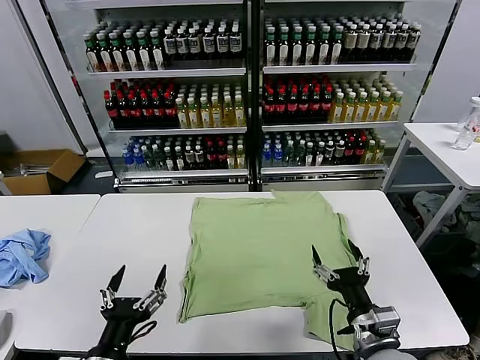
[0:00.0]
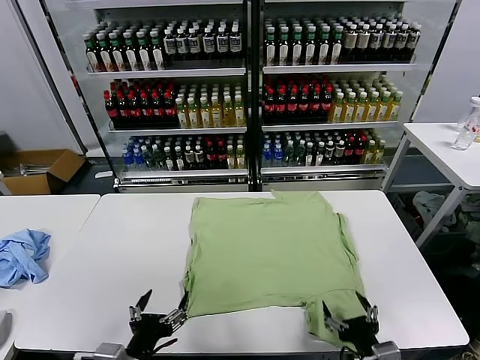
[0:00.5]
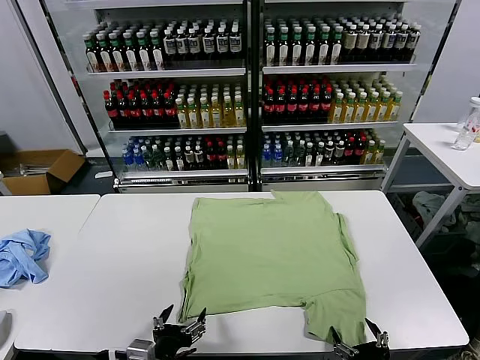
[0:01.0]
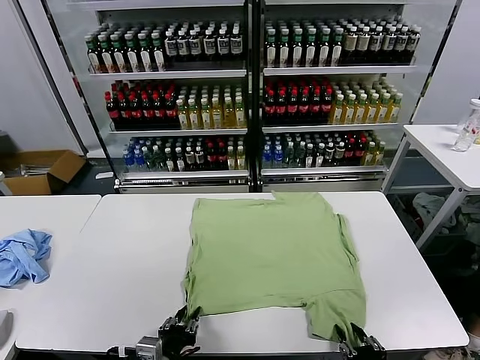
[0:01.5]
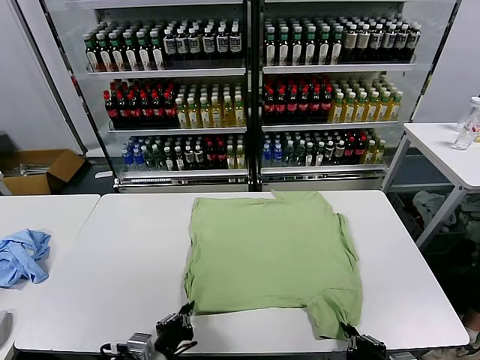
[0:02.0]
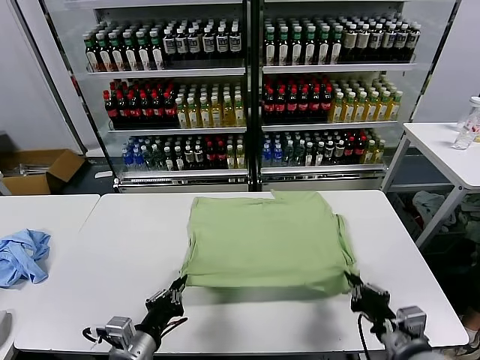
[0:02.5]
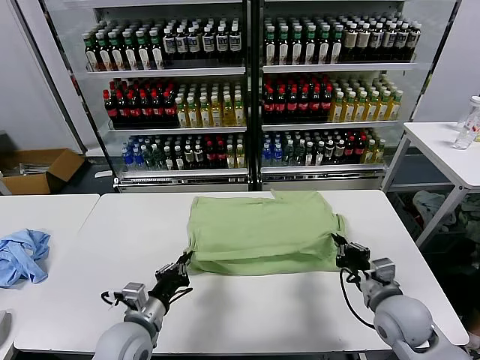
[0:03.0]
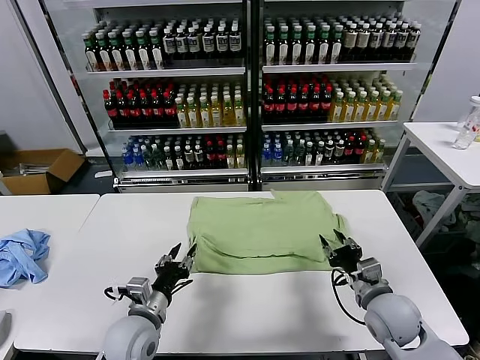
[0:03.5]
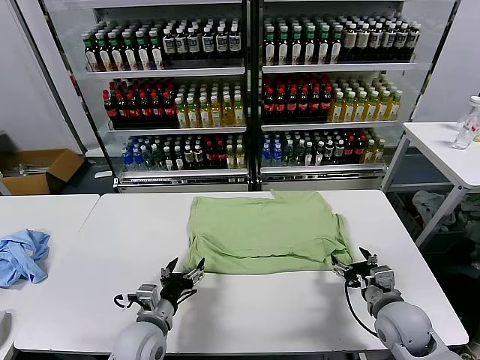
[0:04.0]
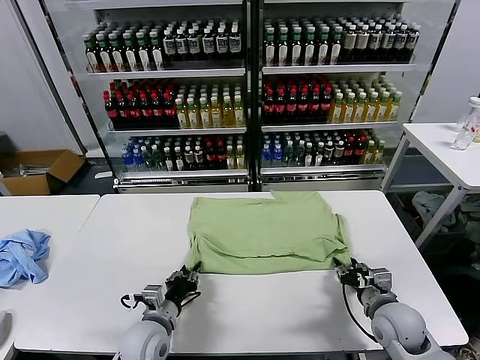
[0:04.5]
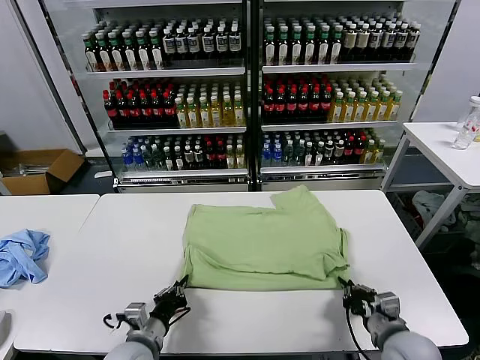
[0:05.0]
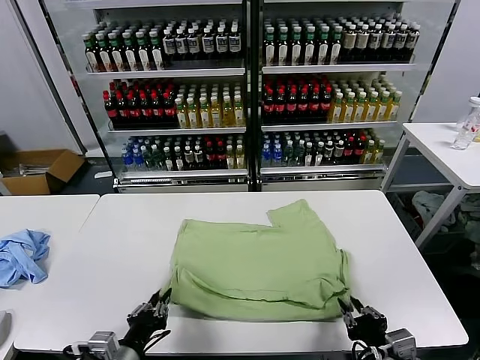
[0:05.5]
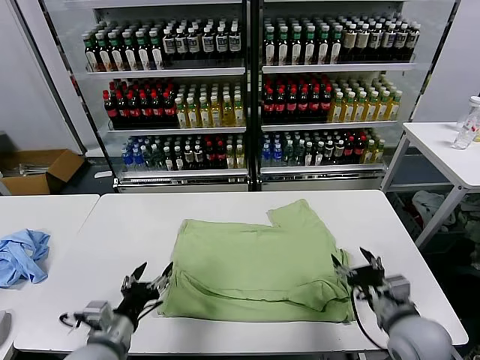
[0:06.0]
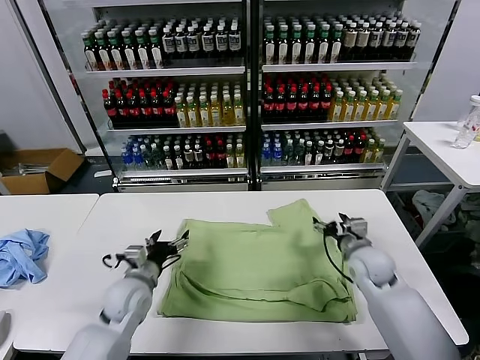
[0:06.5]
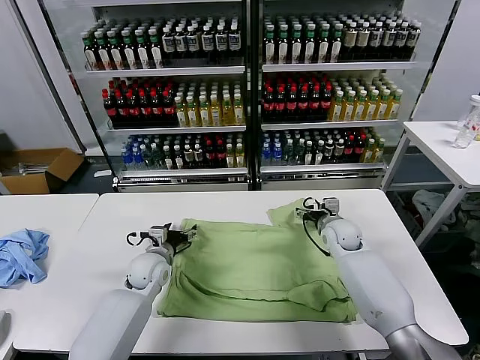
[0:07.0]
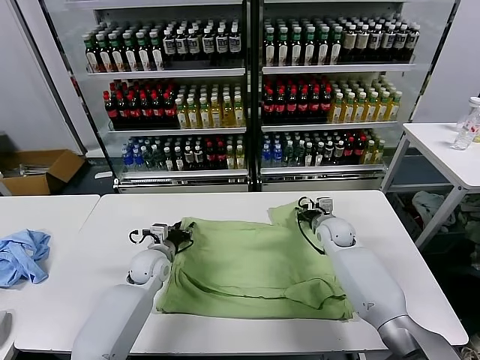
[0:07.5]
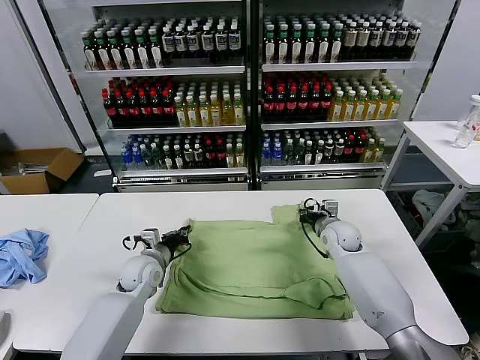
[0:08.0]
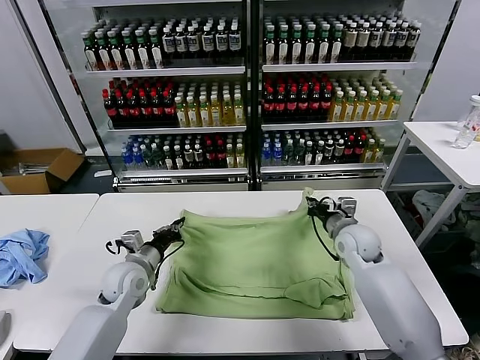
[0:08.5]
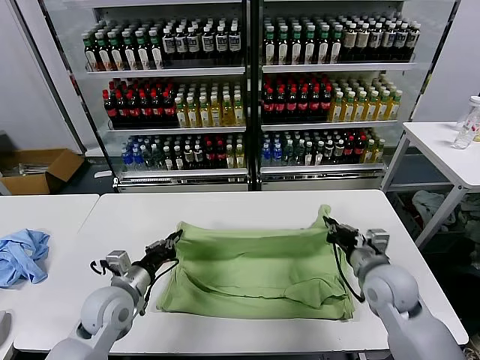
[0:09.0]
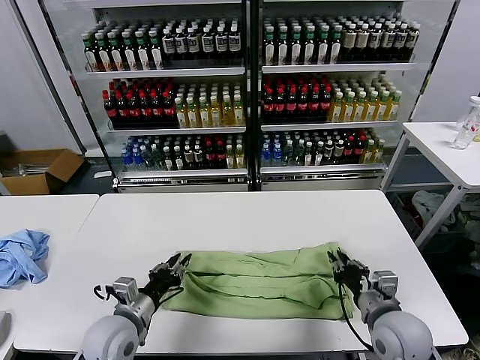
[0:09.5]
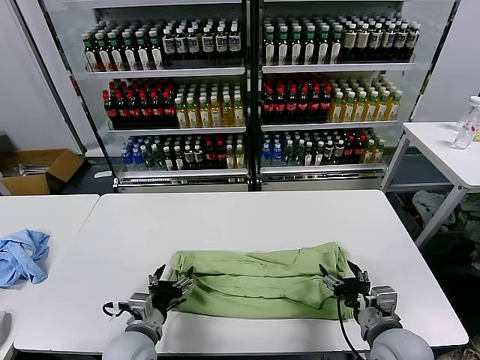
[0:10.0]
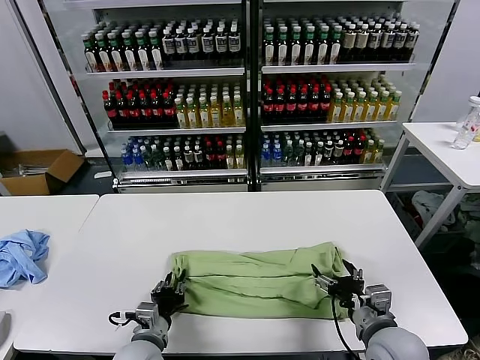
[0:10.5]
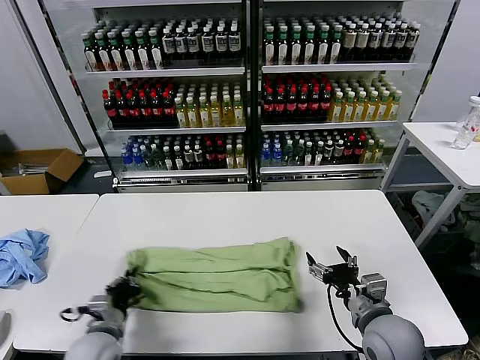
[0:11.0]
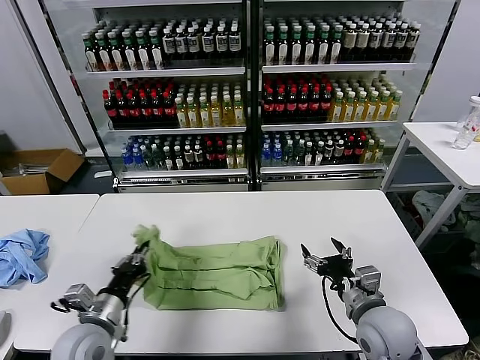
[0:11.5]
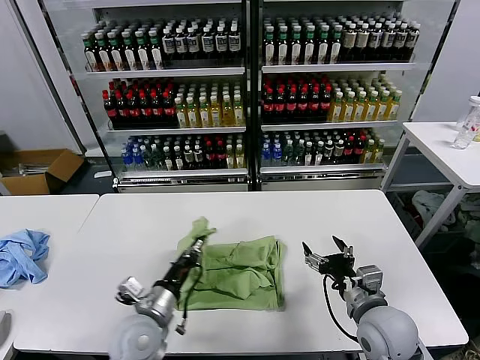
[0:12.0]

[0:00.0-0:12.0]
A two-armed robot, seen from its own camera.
Task of the whole recording: fold and organize the clothes.
Step, 0:00.0 to 0:01.5: use both grippers simultaneously to clamp the lower edge of the clothing fabric.
Step, 0:02.0 to 0:03.0: use both grippers to drag the lower edge of the fabric forward and fold it over the upper edge.
Step, 0:03.5 to 0:05.5: Drag the clothes downward with both gripper.
Step, 0:06.0 to 0:07.5: use both grippers simultaneously to clamp the upper edge of the clothing fabric.
Step, 0:08.0 to 0:09.5: use both grippers to drag the upper edge of the fabric backward and fold it over the lower edge.
Step, 0:10.0 to 0:10.5: use the left gripper to clamp the left edge of the fabric.
0:02.0 to 0:04.0: Both grippers travel together forward, approximately 15 cm. The left gripper opens its fingers. Meanwhile the right gripper opens.
0:04.0 to 0:06.0: The left gripper goes roughly 10 cm upward, to the left and backward, and closes, then opens again, while the right gripper goes backward and returns, some 15 cm each way, and closes, then opens again.
0:06.0 to 0:08.0: Both grippers travel together forward, approximately 20 cm. The right gripper closes up; the left gripper closes its fingers.
0:08.0 to 0:10.0: The right gripper shifts approximately 30 cm backward, and opens its fingers. Meanwhile the left gripper heads backward, covering some 20 cm, and opens up.
0:10.0 to 0:12.0: The left gripper reaches about 10 cm to the left, then returns, and closes up.

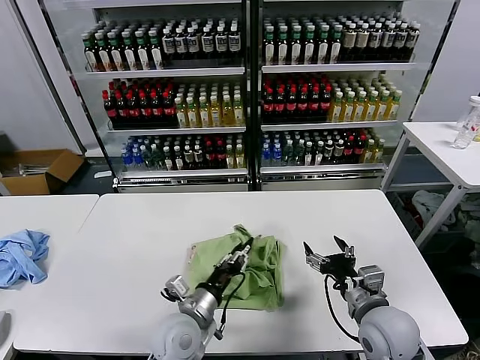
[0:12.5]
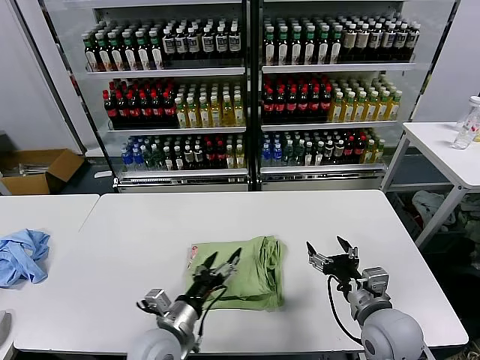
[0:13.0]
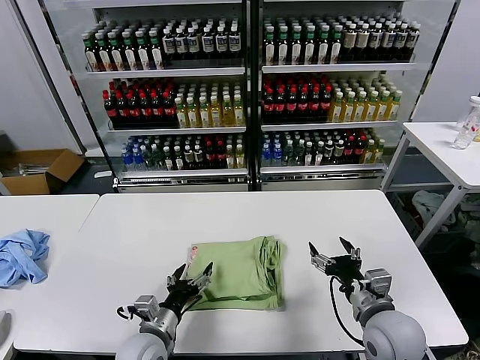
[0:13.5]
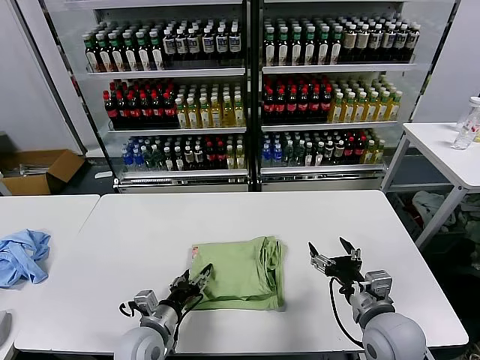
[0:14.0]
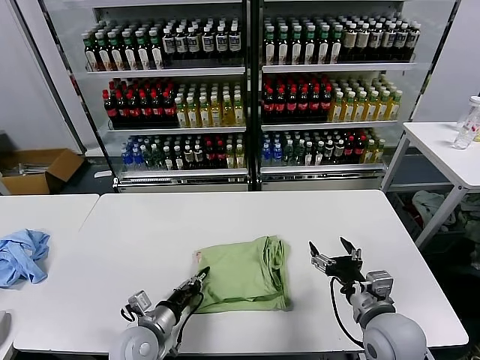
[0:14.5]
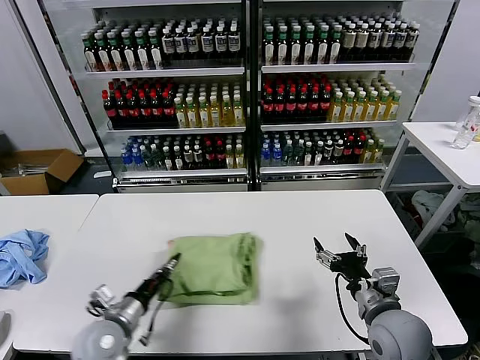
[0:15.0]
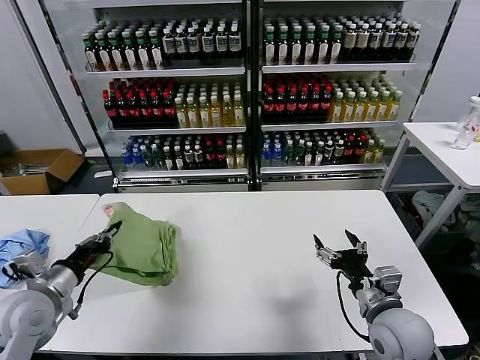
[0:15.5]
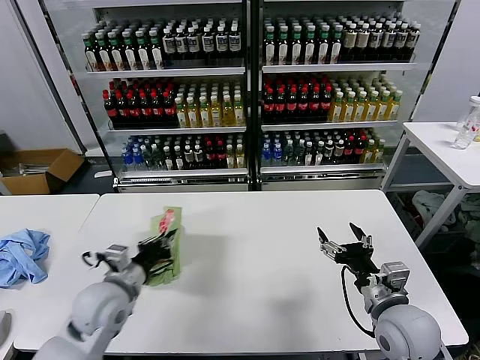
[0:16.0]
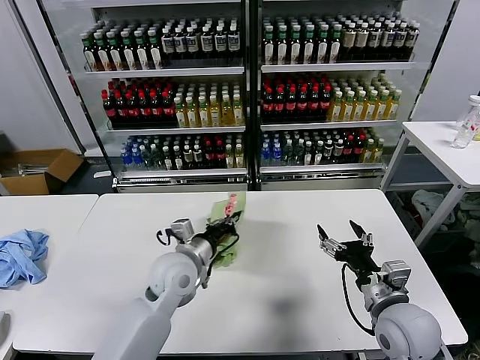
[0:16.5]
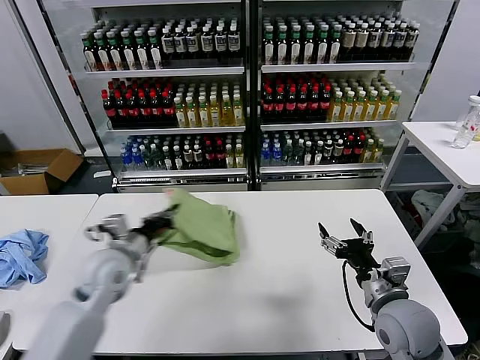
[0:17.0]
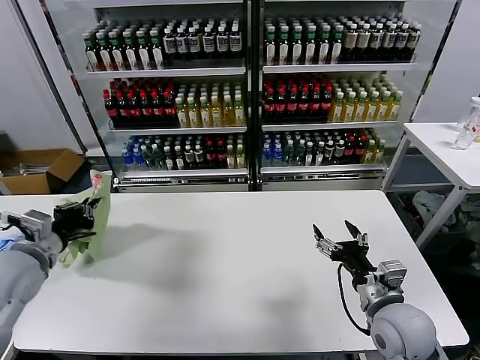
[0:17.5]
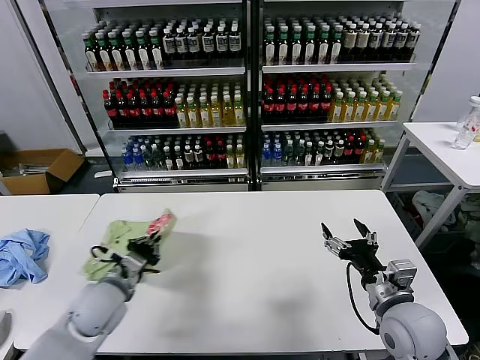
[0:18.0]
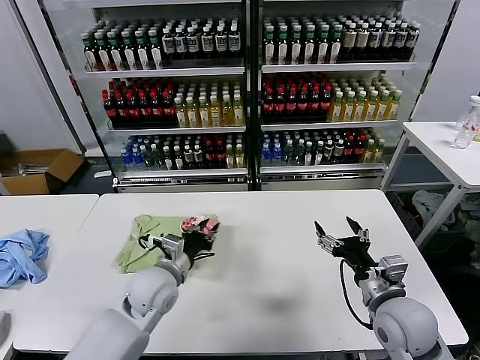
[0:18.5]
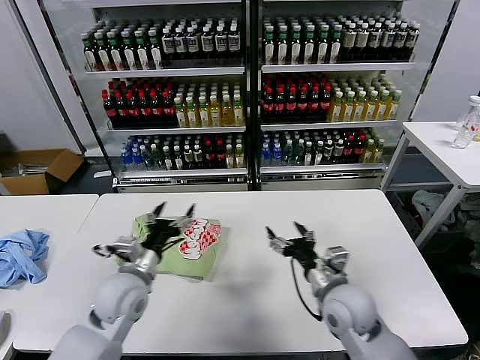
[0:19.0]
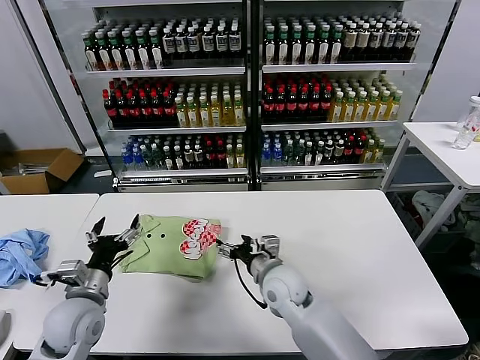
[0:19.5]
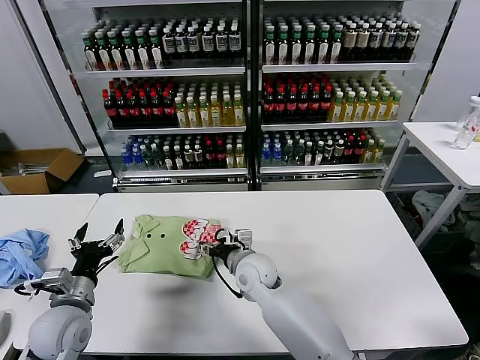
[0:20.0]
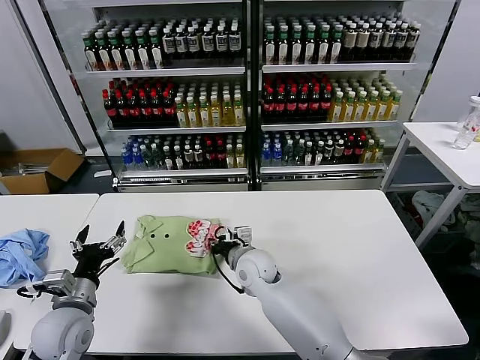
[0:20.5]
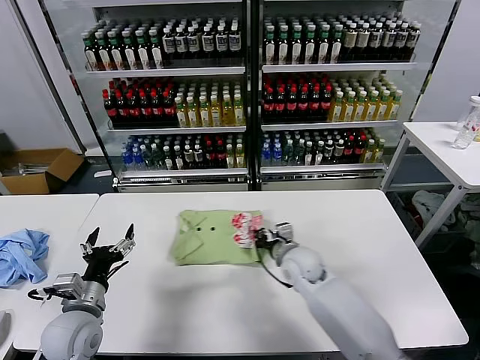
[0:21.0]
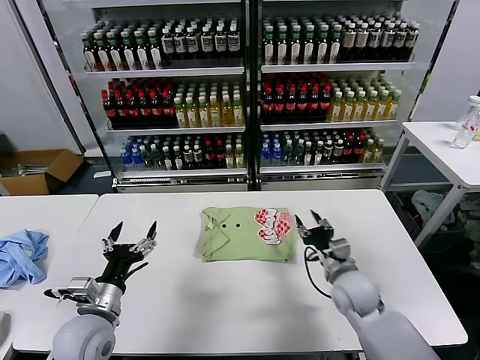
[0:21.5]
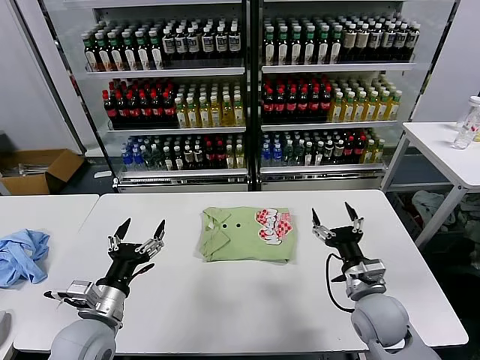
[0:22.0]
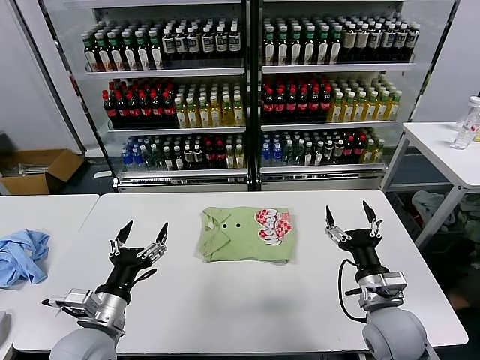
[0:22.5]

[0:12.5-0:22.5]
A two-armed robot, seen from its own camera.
Task of the whole recording: fold and organize the clothes.
Step, 0:13.0 to 0:18.5: Flip the folded clothes over with left gripper.
Step, 0:19.0 to 0:21.0: Drag the clothes to the center of the table.
0:12.5 to 0:14.5: The left gripper shifts approximately 10 cm to the left, and opens, then closes once more.
0:14.5 to 0:16.5: The left gripper is displaced upward and forward by about 15 cm, and goes to the left and returns, about 15 cm each way.
0:16.5 to 0:18.5: The left gripper travels to the left and back again, about 25 cm each way.
0:18.5 to 0:20.5: The left gripper shifts some 15 cm to the left and backward, and opens up, while the right gripper goes approximately 30 cm to the left and forward, and closes.
0:20.5 to 0:22.5: The left gripper moves to the right, approximately 5 cm. The right gripper moves to the right and backward, some 30 cm, and opens its fingers.

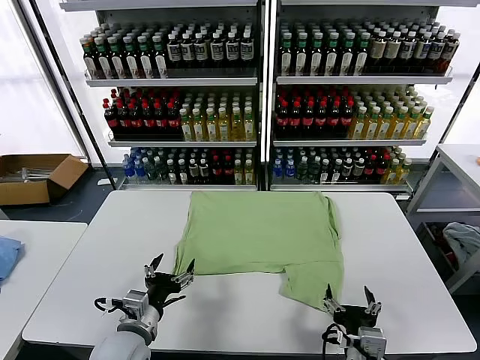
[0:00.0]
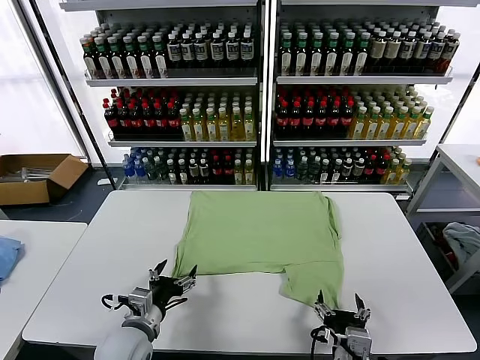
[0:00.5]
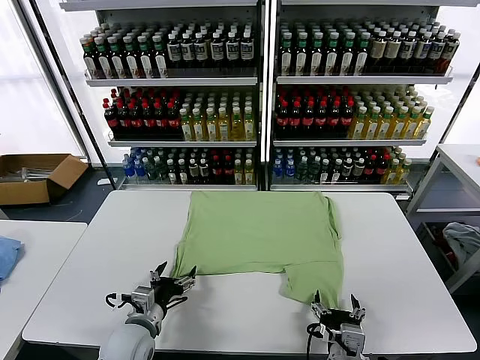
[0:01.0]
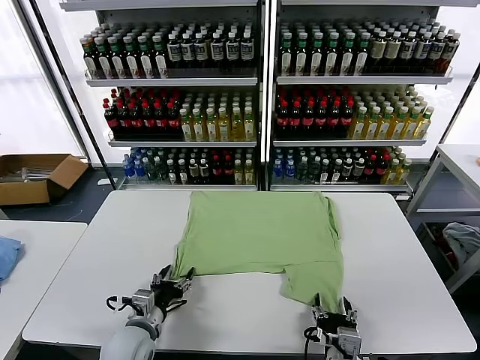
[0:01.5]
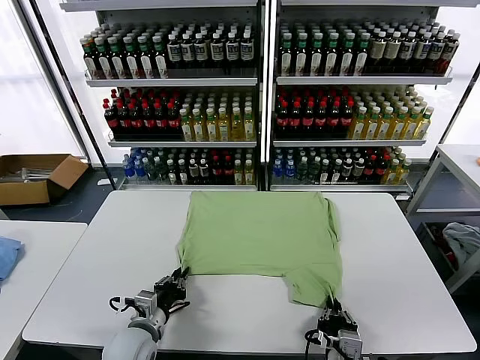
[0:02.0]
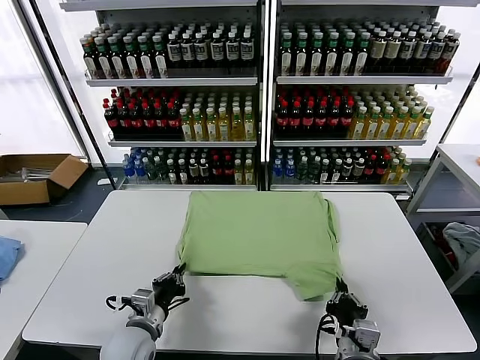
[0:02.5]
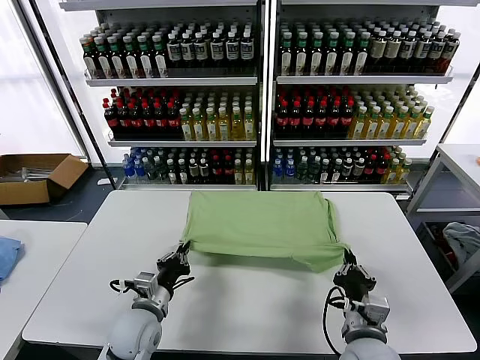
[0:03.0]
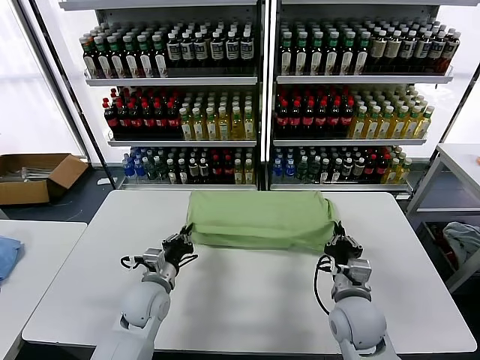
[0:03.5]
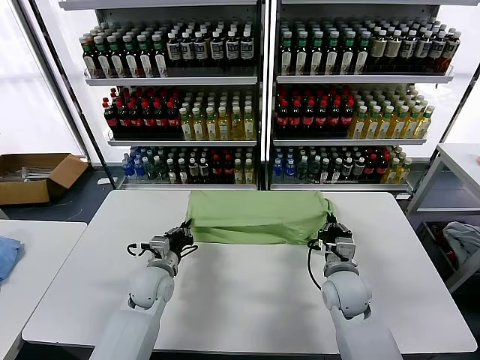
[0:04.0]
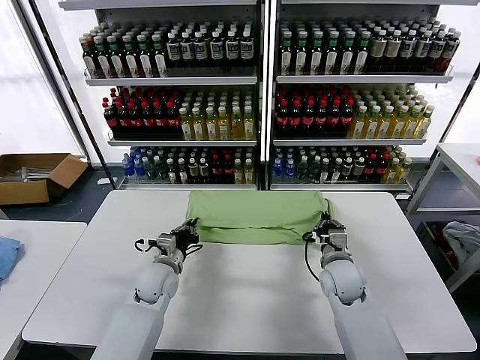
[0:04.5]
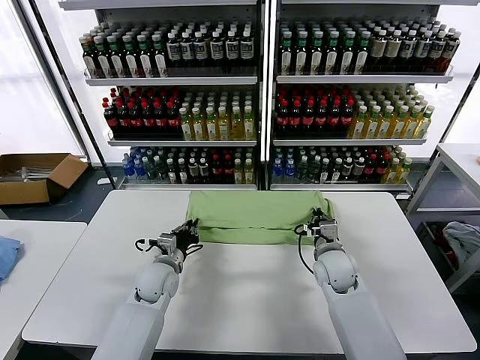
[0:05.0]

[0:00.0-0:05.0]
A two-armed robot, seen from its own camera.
Task of the whole recording: fold and organize the clothes.
Step, 0:00.0 to 0:02.0: use both grippers simultaneously to clamp the lower edge of the clothing fabric.
0:02.5 to 0:05.0: The left gripper is displaced forward by some 15 cm, while the right gripper is displaced forward by roughly 25 cm.
